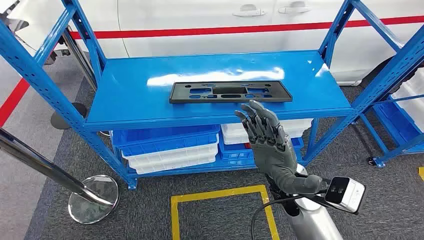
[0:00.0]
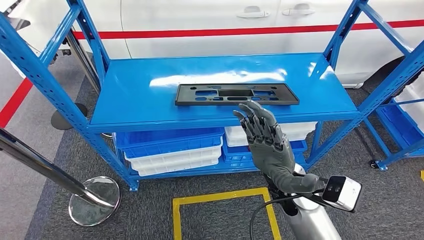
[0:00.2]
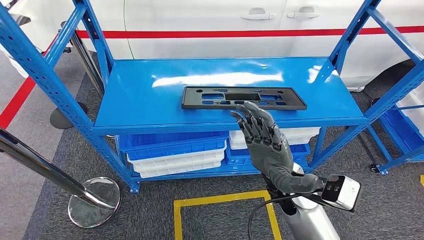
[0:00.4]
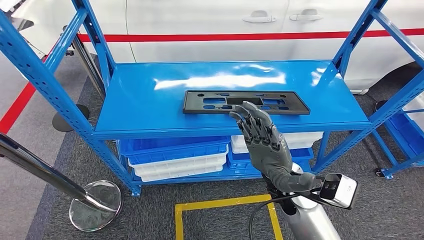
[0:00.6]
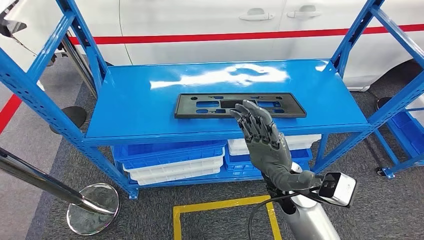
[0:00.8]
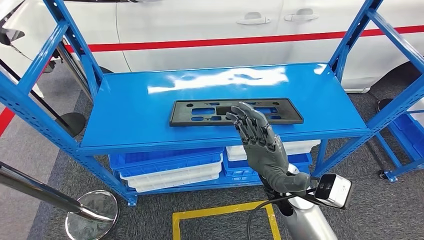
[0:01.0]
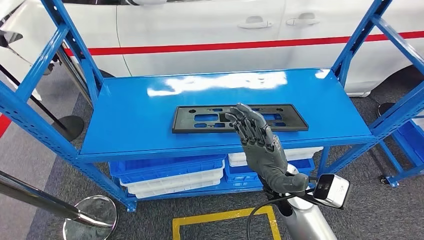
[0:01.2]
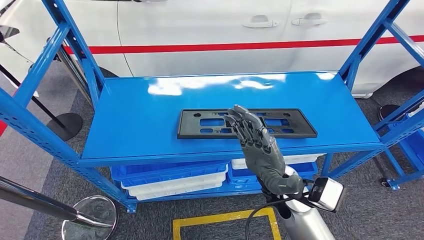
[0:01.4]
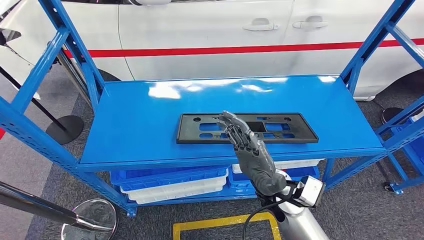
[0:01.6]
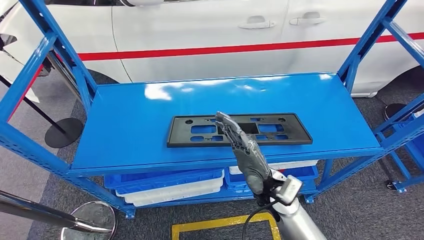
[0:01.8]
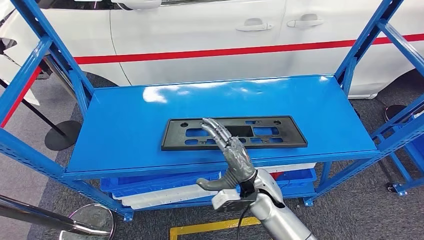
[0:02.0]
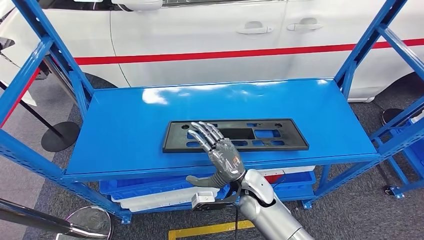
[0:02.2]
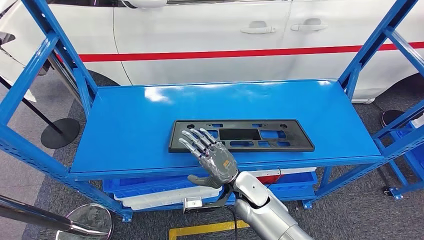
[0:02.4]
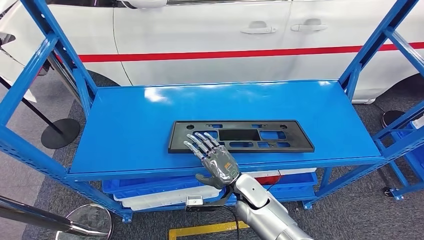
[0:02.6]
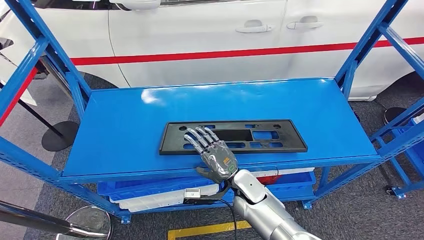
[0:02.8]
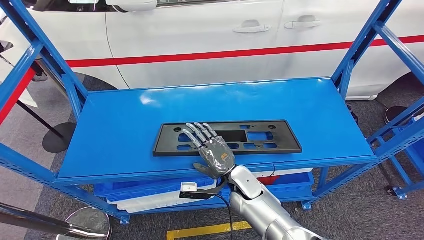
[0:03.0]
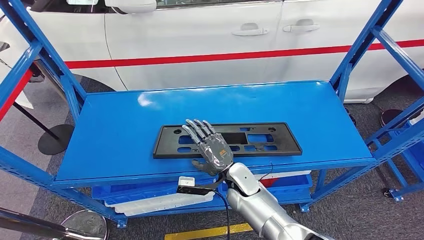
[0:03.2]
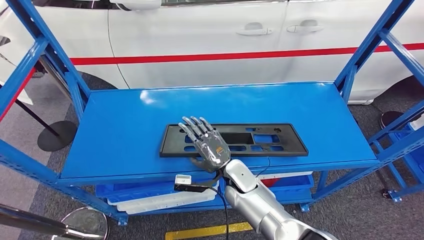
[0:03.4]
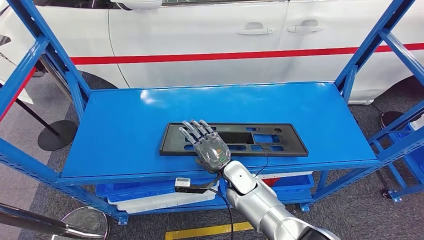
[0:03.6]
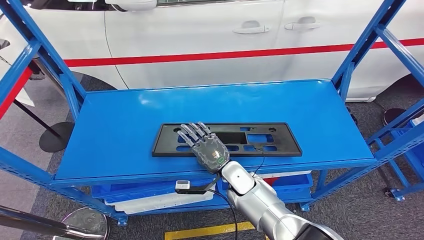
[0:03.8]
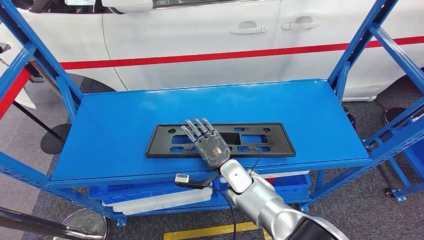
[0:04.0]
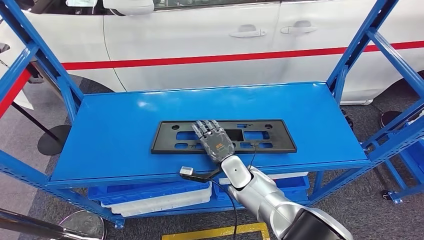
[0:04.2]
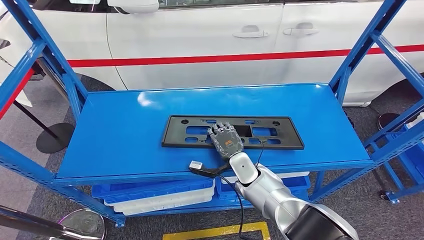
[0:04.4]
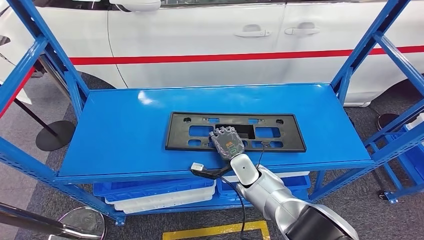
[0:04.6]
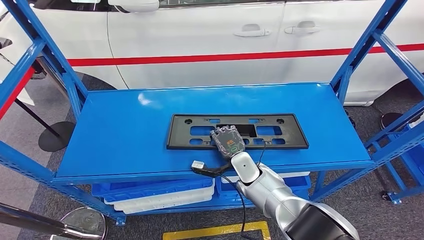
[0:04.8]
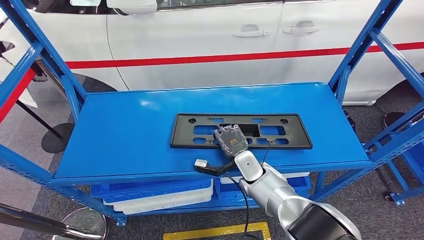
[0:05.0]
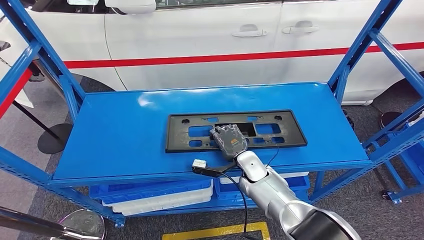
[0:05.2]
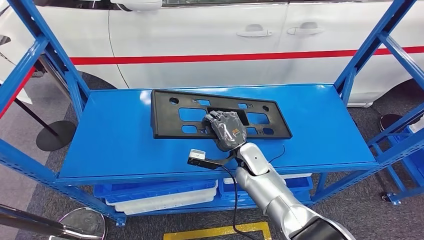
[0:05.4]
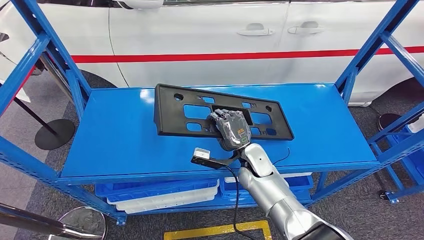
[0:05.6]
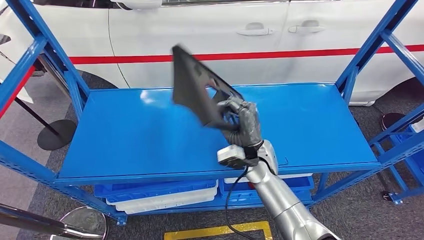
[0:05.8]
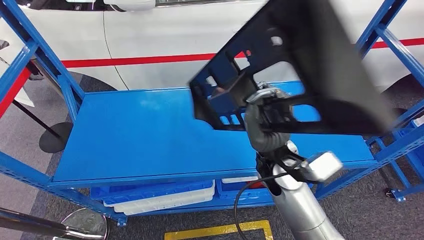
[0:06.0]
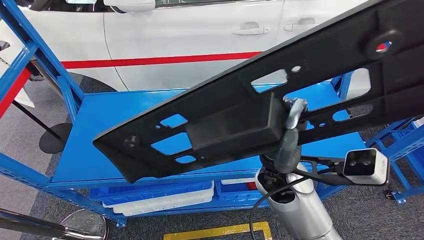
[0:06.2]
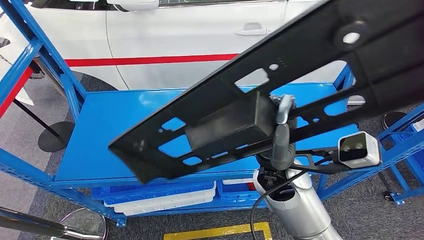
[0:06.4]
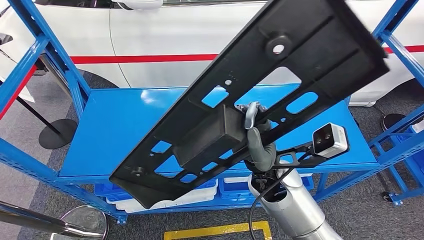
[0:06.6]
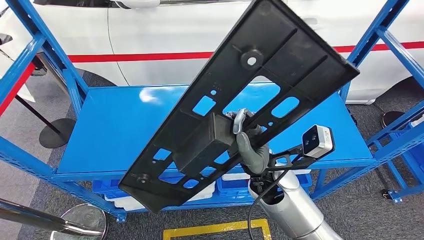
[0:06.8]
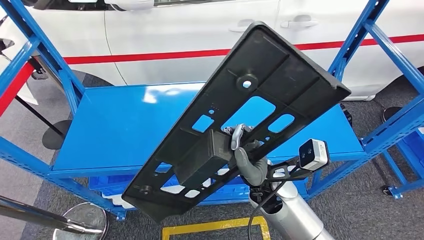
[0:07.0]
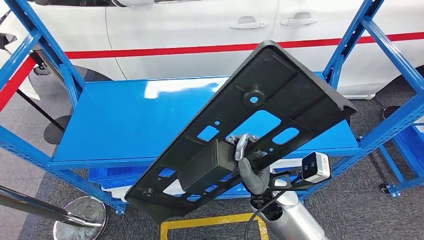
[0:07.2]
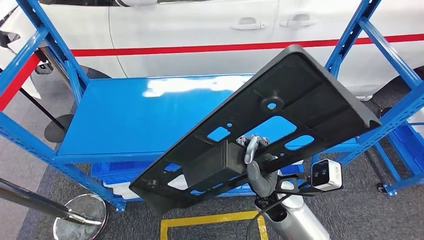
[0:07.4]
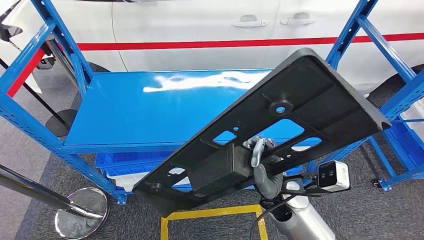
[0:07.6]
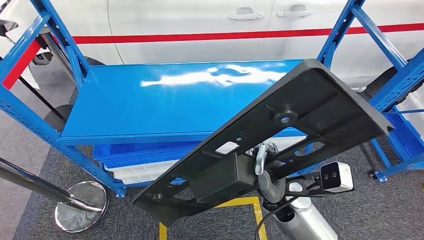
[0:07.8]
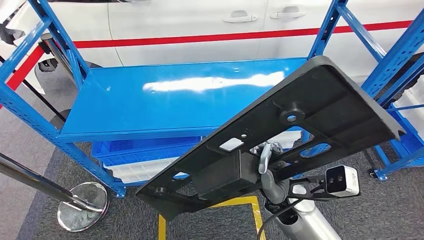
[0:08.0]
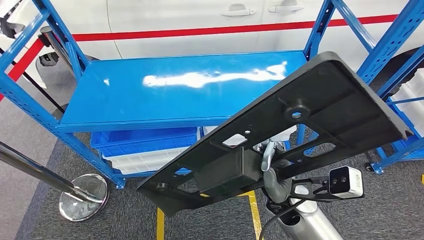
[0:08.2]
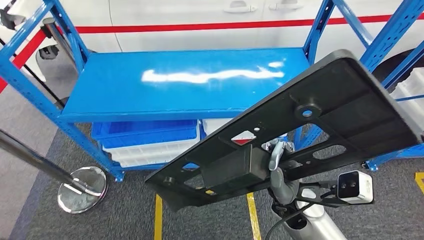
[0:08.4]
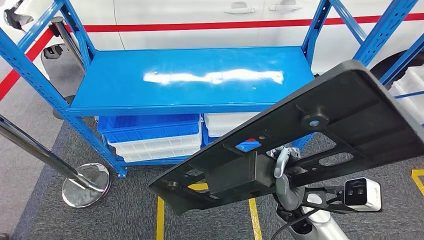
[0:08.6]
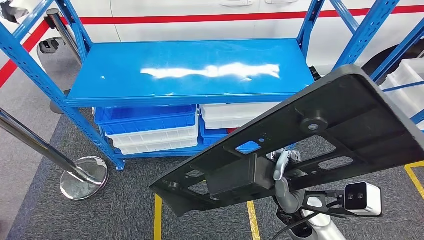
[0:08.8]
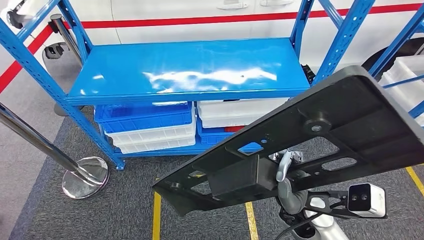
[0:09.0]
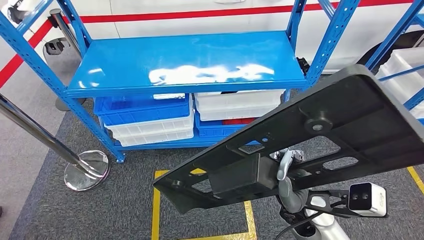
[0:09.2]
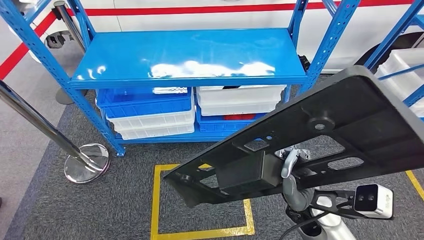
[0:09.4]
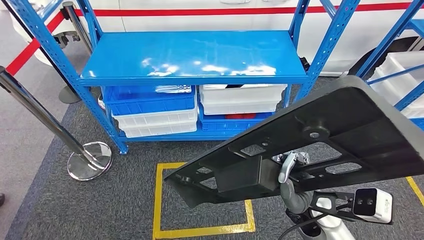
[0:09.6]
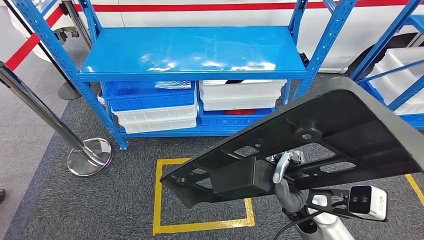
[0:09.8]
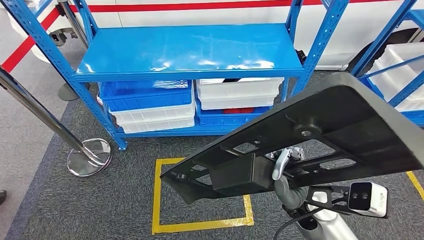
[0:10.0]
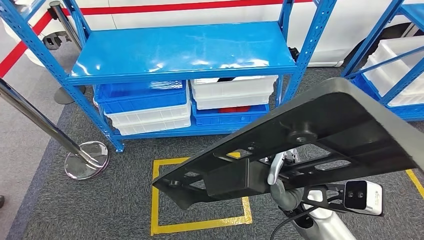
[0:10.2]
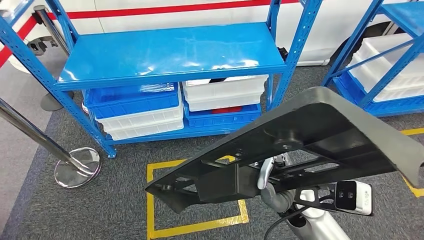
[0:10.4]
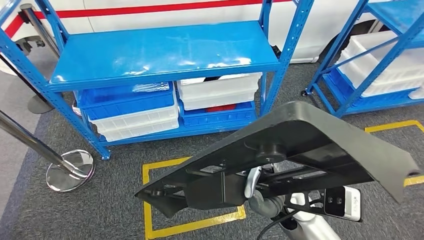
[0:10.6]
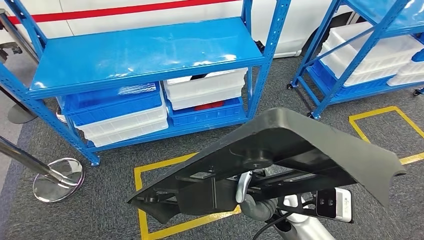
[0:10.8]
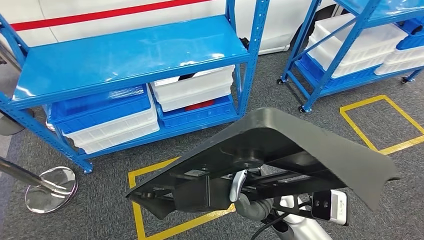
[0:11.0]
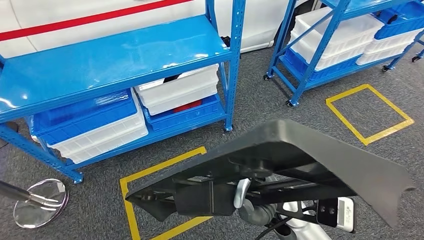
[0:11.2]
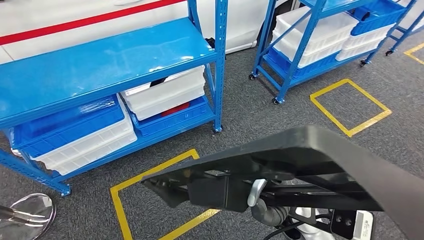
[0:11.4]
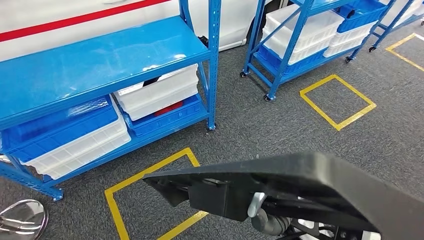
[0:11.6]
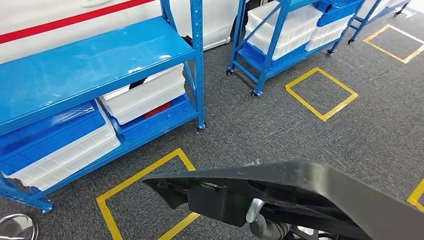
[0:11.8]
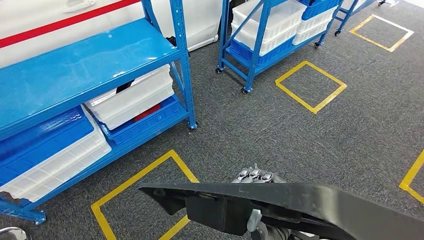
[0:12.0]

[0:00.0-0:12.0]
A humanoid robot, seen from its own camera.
Step, 0:00.0 to 0:05.4: Pick up the large material from the shelf.

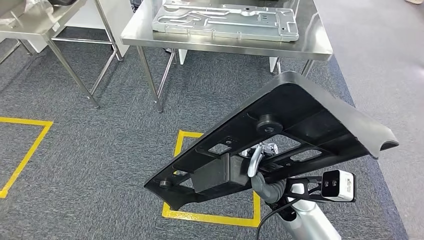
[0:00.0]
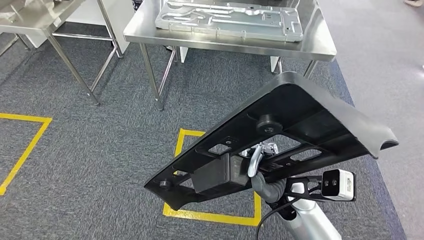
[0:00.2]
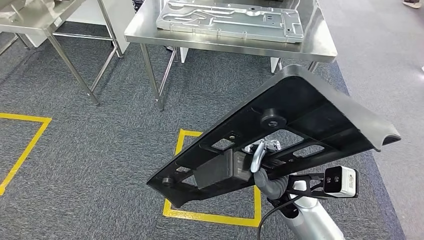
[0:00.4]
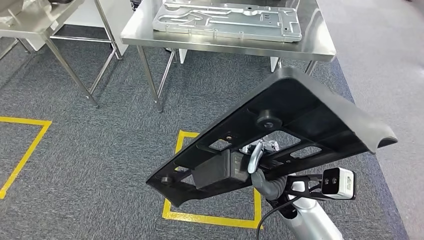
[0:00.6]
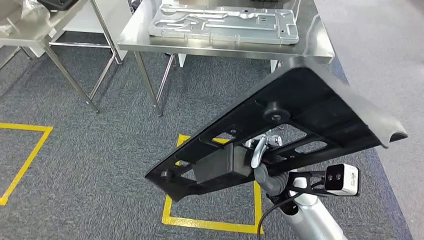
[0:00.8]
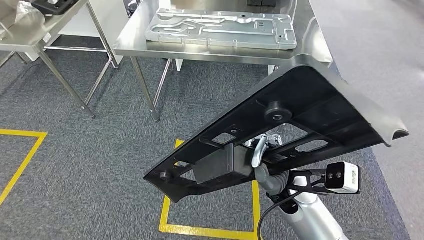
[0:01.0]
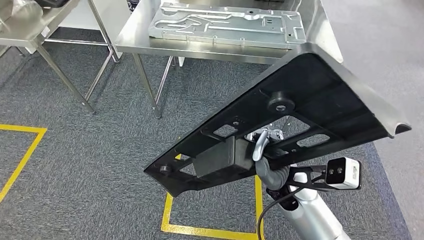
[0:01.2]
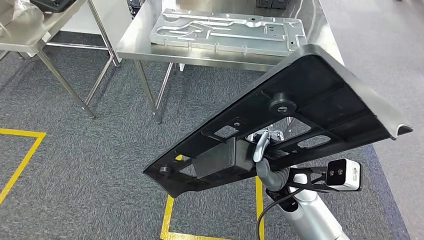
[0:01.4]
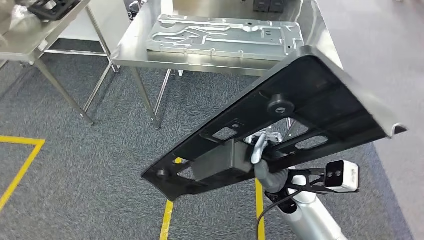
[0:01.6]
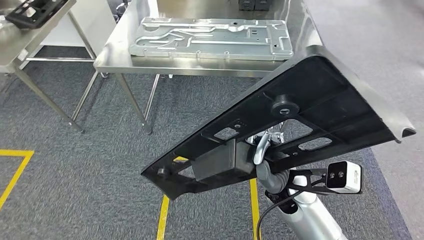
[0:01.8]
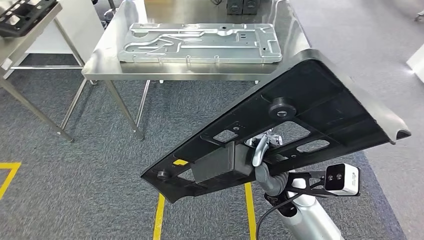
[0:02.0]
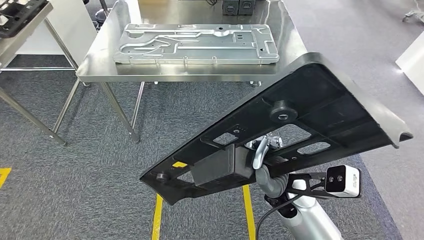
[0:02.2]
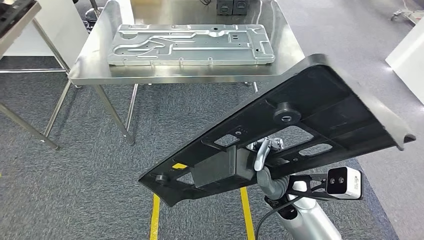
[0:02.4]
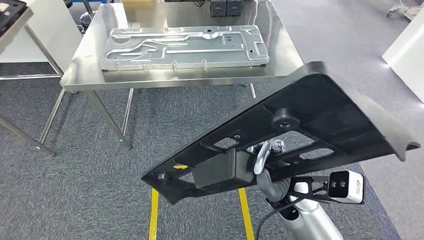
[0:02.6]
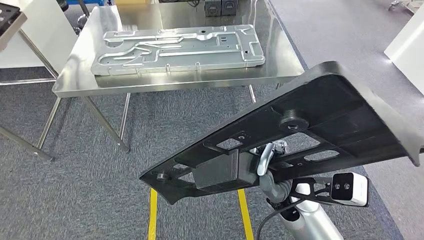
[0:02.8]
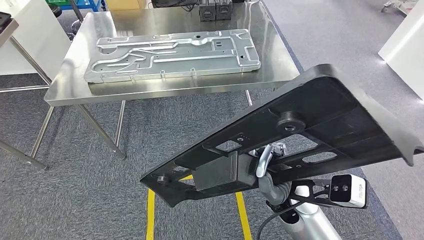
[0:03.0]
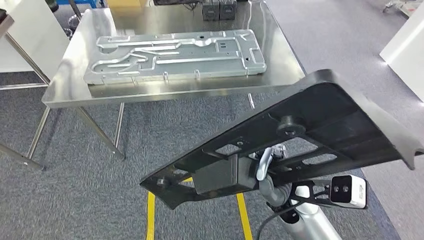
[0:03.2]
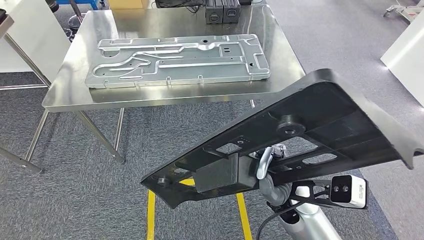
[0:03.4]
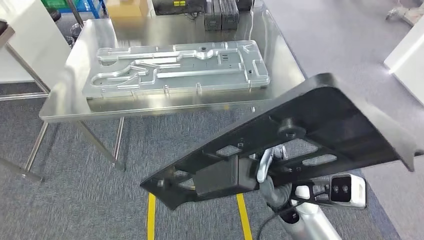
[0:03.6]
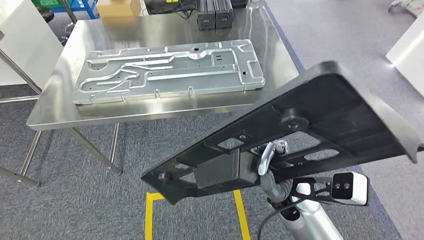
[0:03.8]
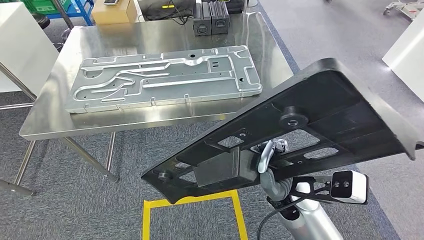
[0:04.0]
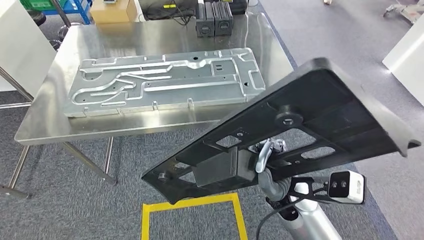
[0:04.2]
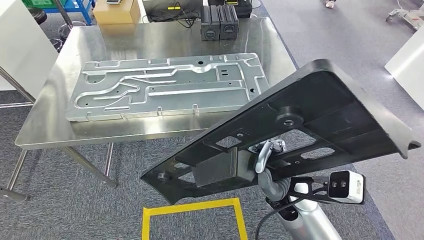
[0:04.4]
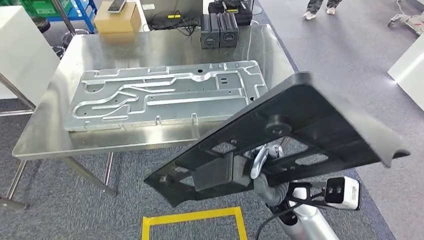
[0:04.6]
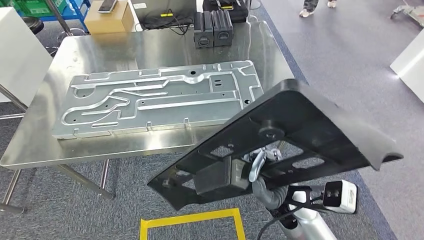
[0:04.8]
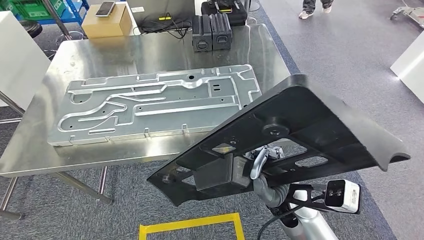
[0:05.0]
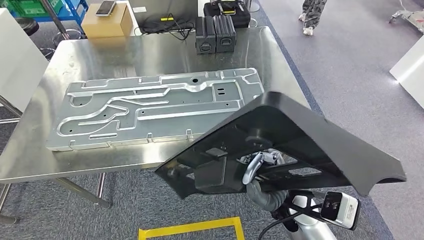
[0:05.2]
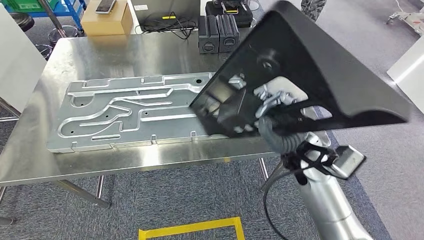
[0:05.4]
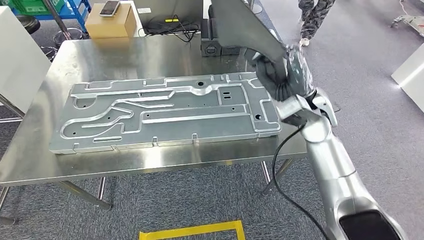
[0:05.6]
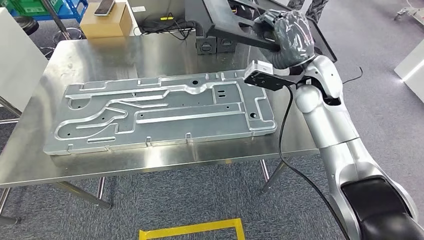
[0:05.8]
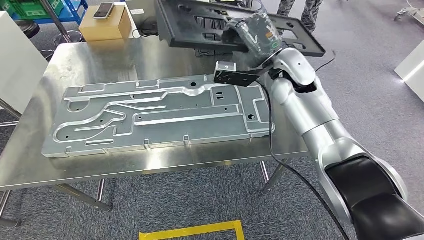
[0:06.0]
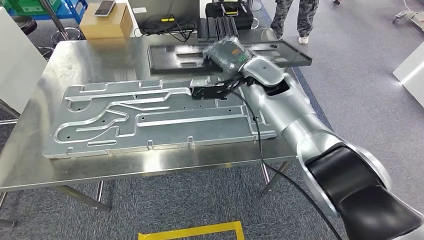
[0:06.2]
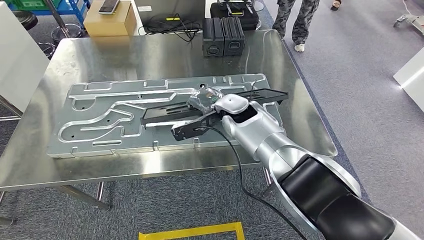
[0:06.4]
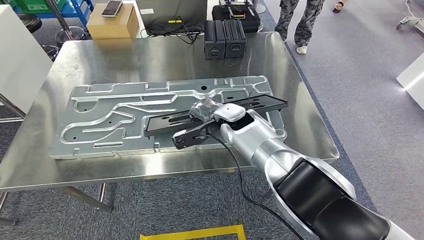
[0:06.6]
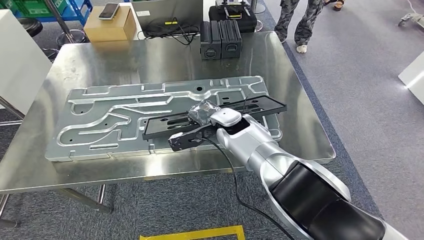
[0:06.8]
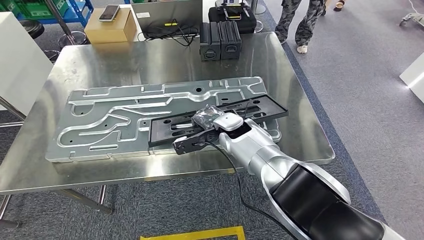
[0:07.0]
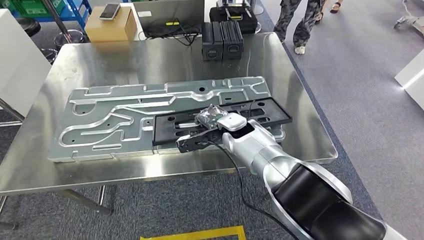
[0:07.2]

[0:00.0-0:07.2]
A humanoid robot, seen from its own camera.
Step, 0:00.0 to 0:05.4: Move the large material to the workbench.
